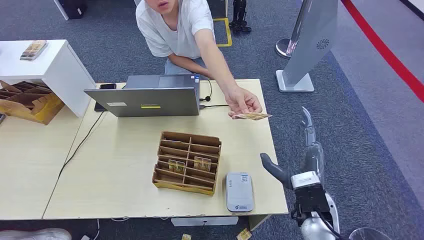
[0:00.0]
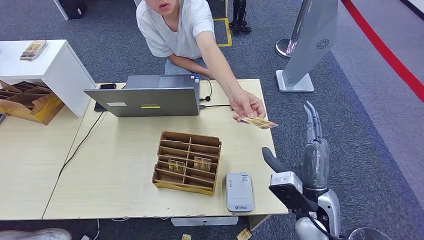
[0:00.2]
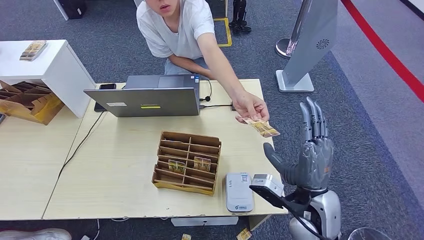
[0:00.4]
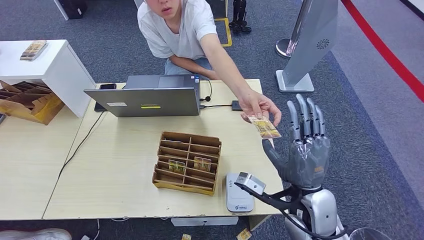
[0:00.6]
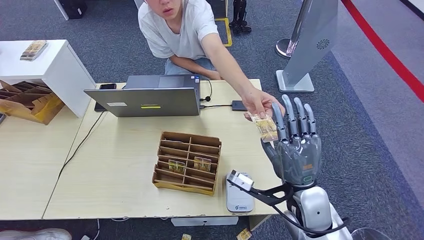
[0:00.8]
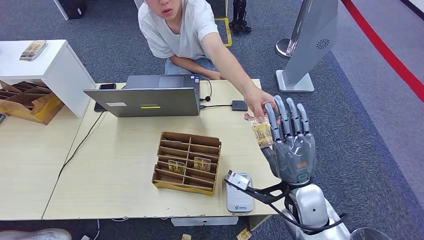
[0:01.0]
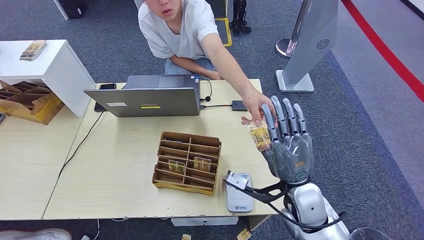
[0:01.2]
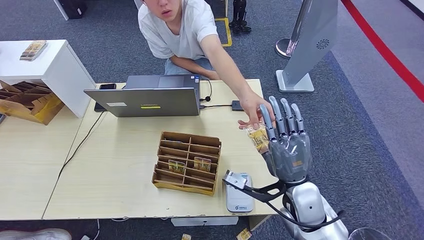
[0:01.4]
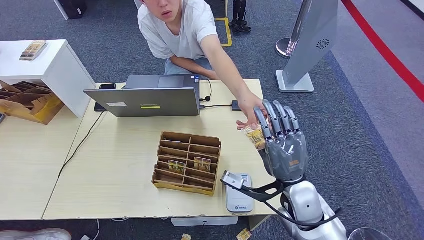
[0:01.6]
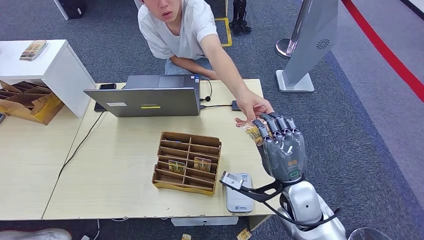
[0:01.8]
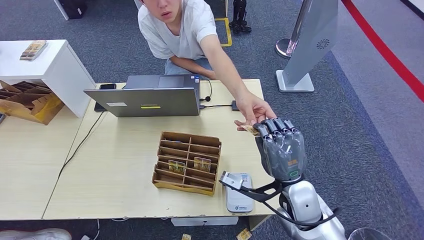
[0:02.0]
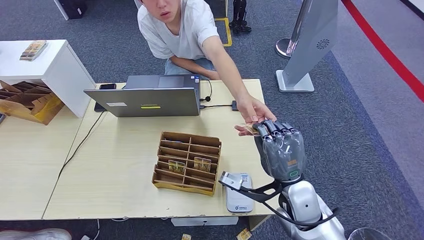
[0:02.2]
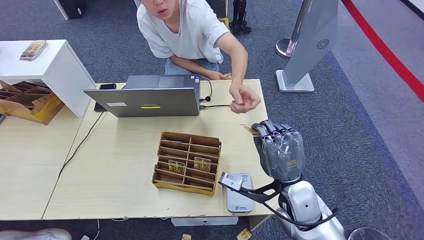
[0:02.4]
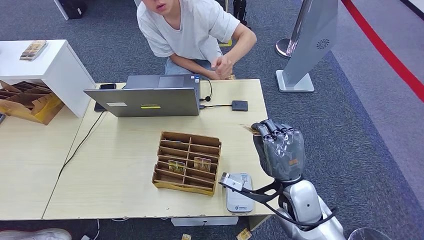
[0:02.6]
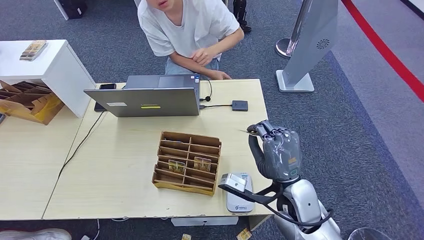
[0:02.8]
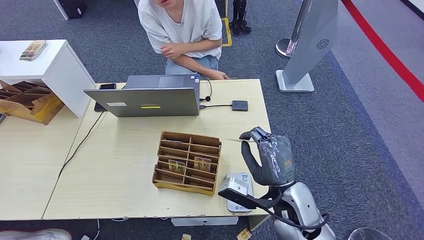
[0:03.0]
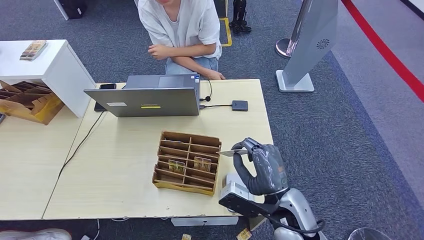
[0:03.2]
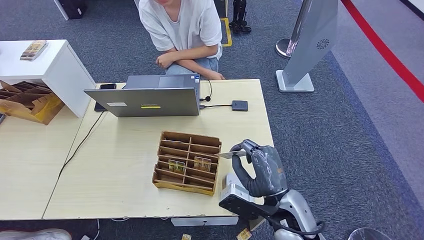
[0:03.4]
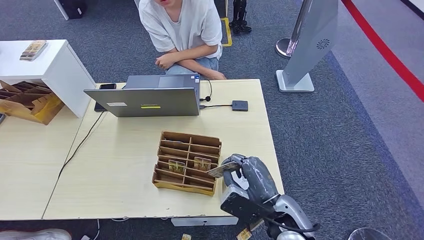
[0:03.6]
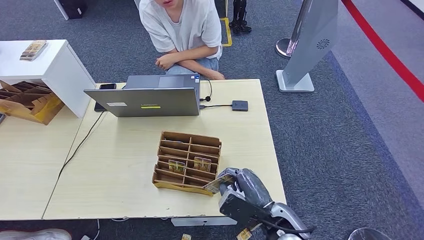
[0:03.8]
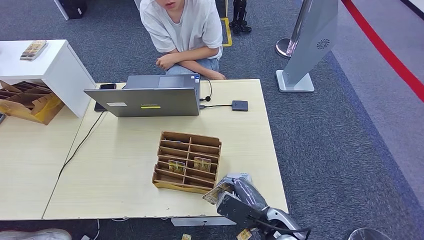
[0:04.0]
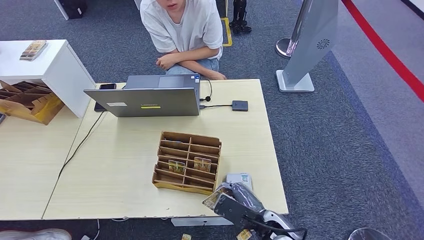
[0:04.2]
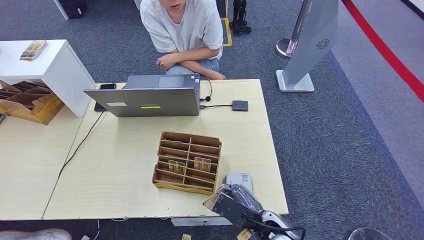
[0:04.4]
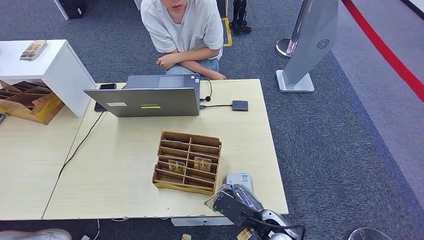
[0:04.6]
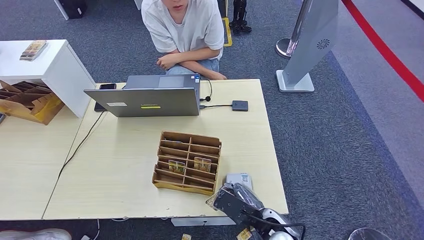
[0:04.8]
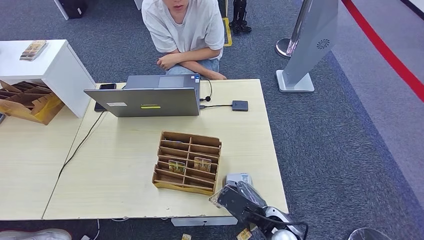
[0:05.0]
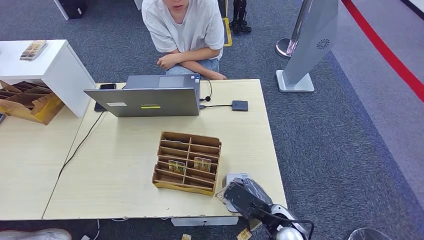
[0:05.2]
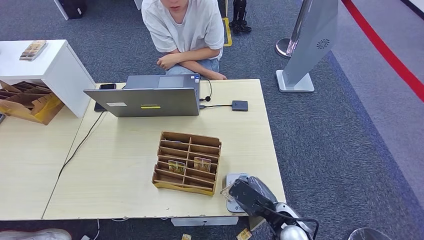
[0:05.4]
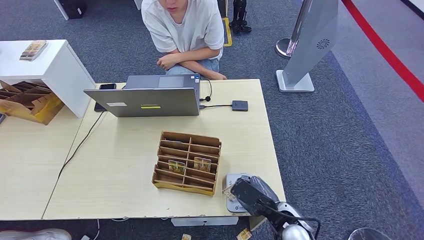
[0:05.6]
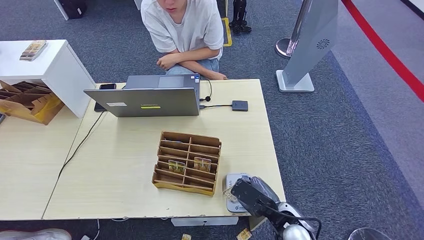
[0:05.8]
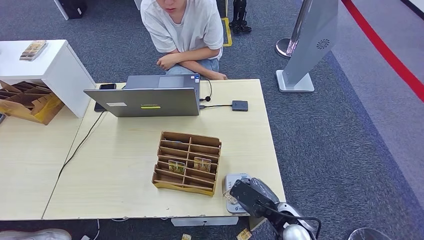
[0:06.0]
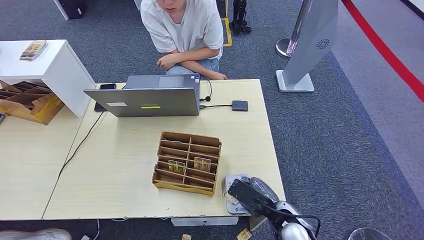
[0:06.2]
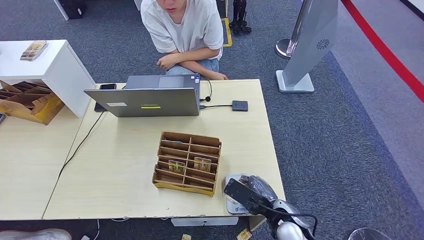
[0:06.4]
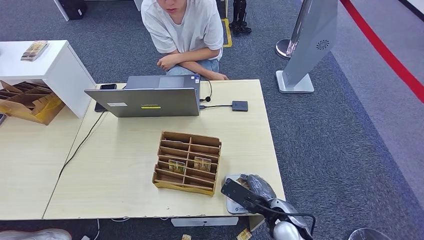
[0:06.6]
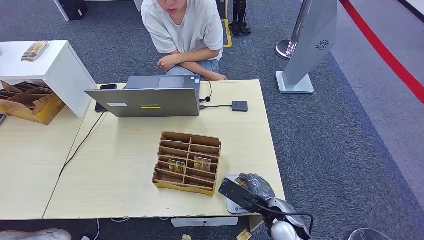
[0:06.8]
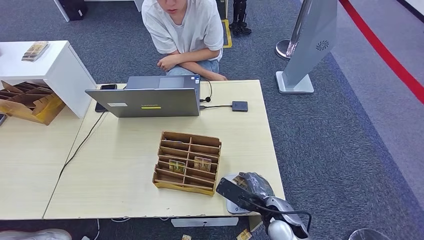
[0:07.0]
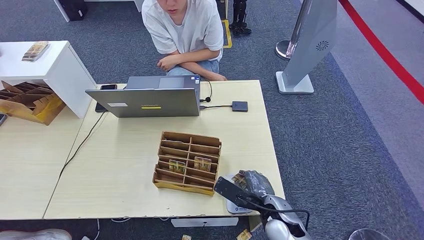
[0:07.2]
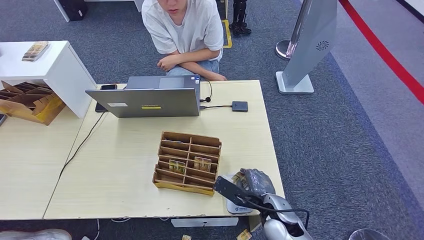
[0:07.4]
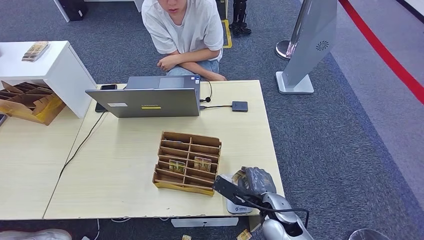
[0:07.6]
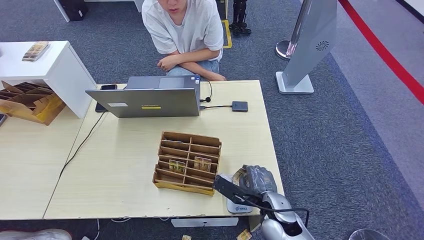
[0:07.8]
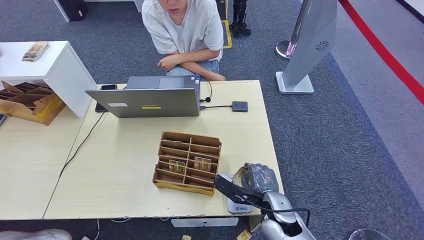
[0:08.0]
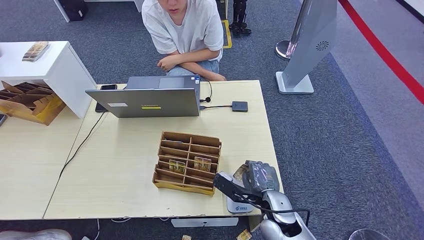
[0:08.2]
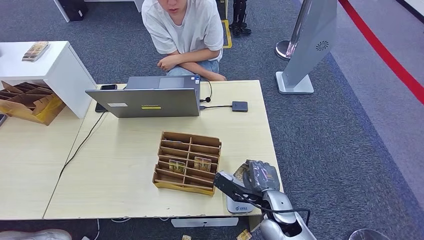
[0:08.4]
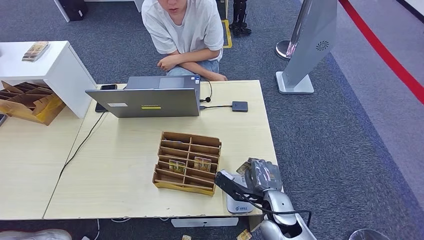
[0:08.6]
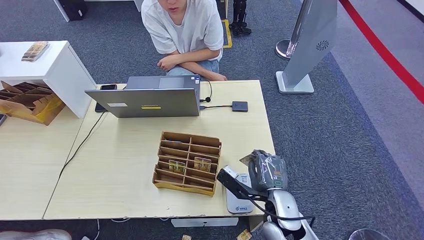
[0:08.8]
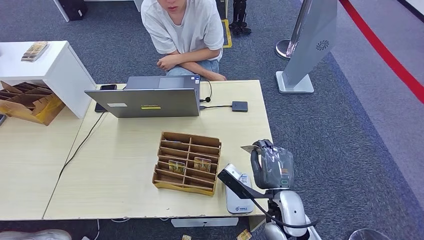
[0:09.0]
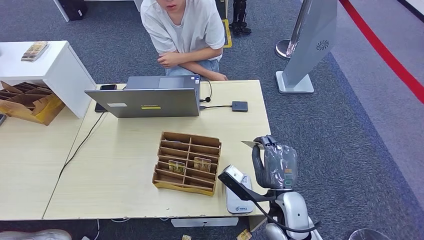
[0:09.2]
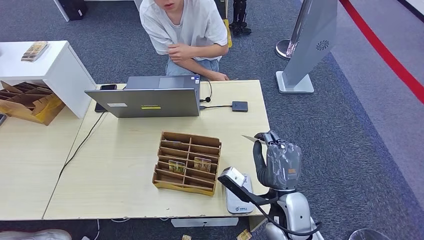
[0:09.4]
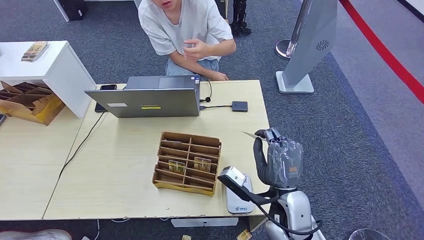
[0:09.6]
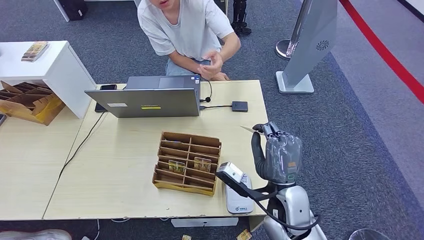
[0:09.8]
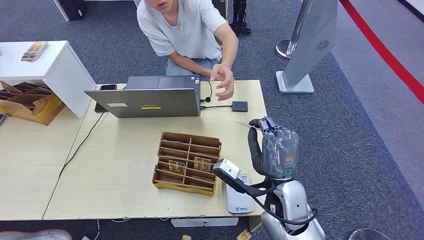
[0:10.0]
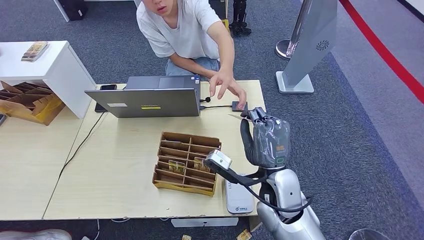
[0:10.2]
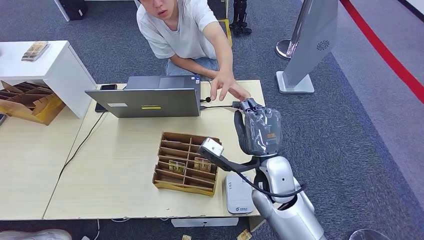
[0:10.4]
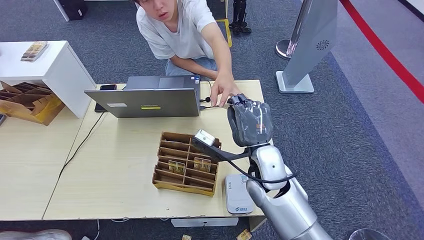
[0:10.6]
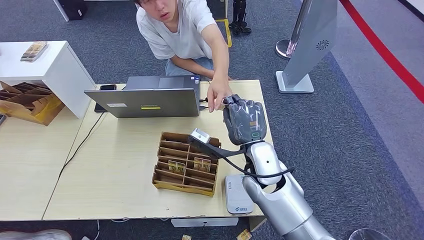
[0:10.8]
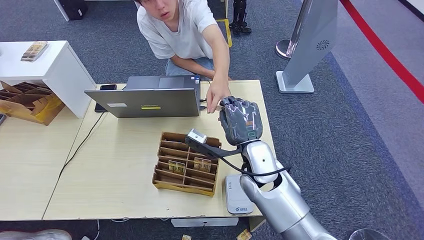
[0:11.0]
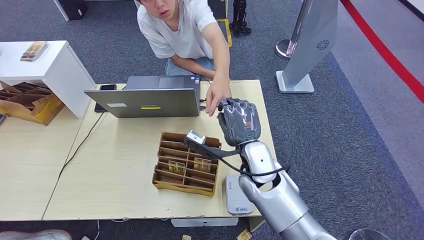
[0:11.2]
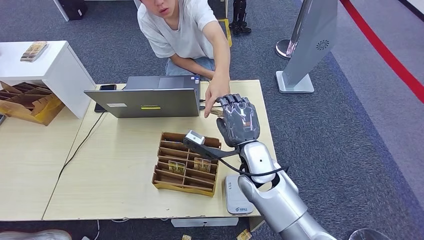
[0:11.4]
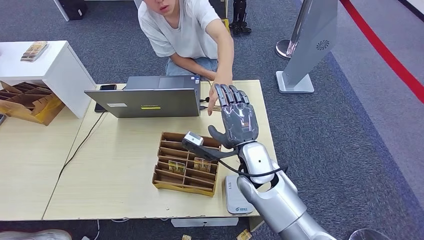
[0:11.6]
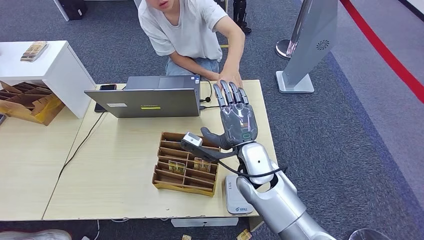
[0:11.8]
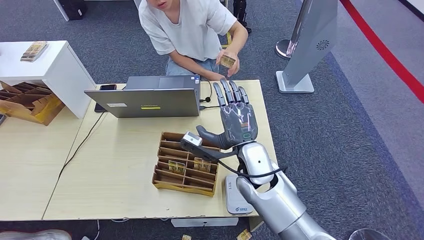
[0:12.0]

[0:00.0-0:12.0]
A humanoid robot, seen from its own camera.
Step, 0:00.0 to 0:02.2: Take the ID card from the person's hand.
Step, 0:02.4 to 0:07.2: Place the ID card on the card reader.
Step, 0:07.4 to 0:11.0: Hand the ID card to the person.
0:03.0 to 0:04.4: The right hand moves downward, about 10 cm.
0:04.4 to 0:06.0: The hands move only a little.
0:07.6 to 0:09.0: The right hand moves some 5 cm.
0:09.0 to 0:10.4: The right hand travels upward and forward by roughly 10 cm.
0:10.4 to 0:12.0: The hands make only small movements.

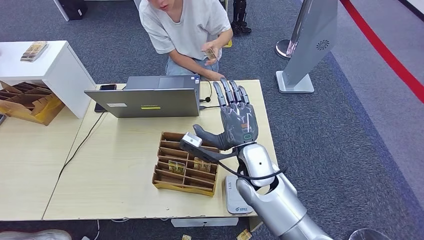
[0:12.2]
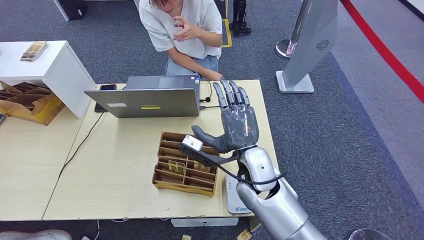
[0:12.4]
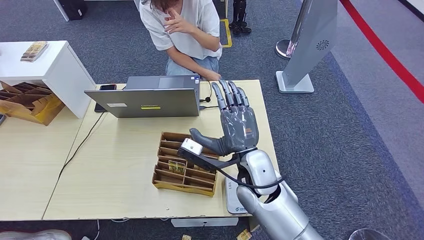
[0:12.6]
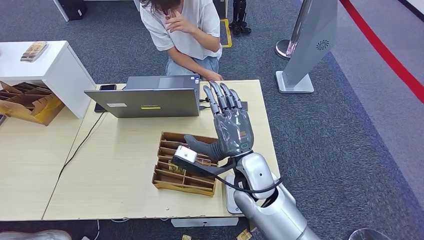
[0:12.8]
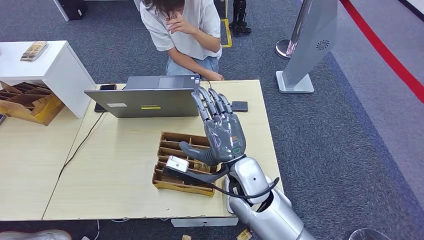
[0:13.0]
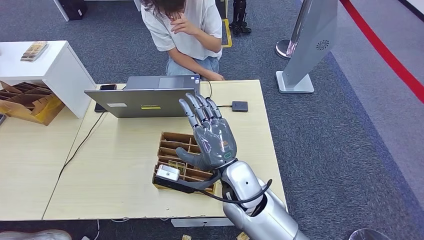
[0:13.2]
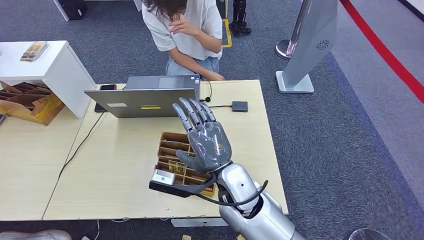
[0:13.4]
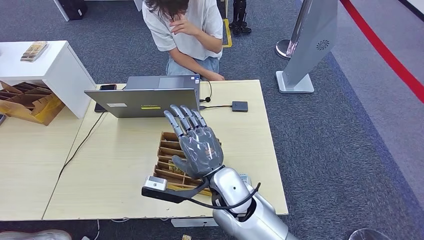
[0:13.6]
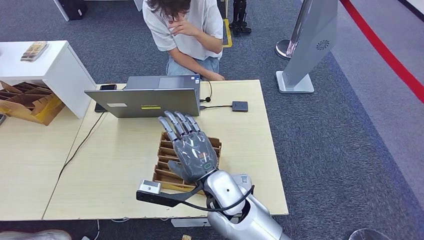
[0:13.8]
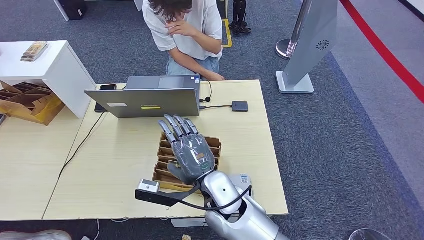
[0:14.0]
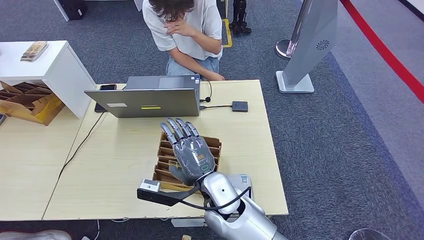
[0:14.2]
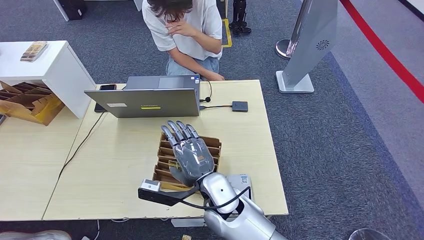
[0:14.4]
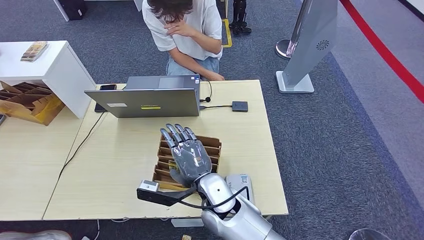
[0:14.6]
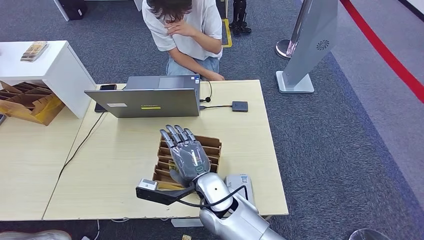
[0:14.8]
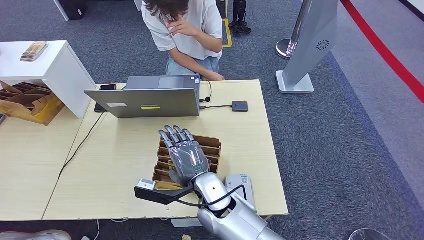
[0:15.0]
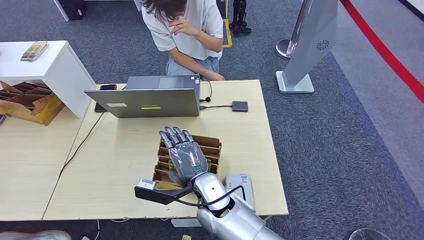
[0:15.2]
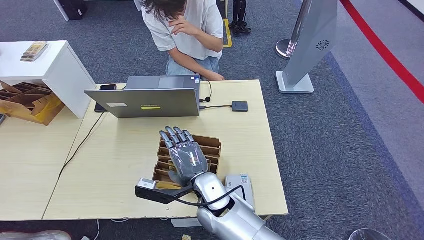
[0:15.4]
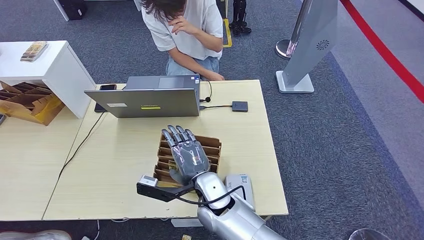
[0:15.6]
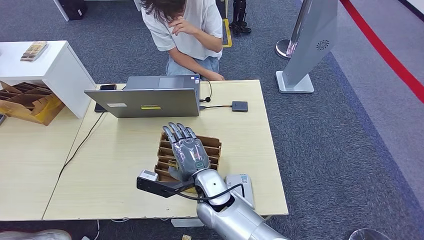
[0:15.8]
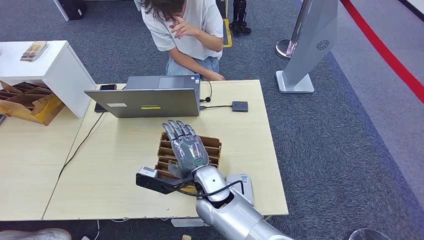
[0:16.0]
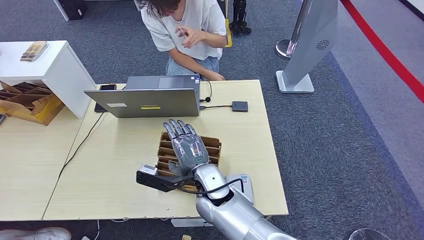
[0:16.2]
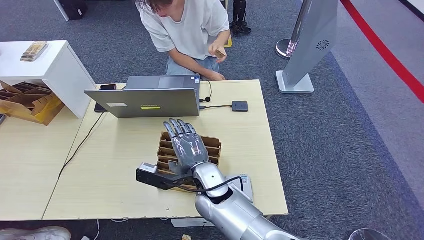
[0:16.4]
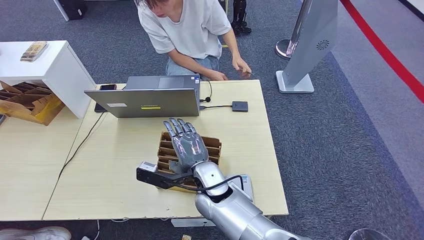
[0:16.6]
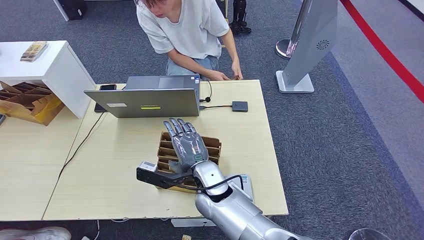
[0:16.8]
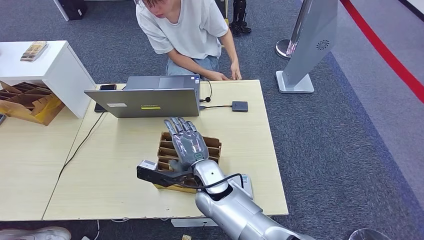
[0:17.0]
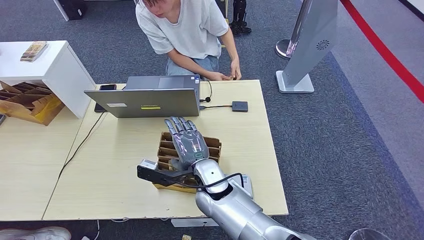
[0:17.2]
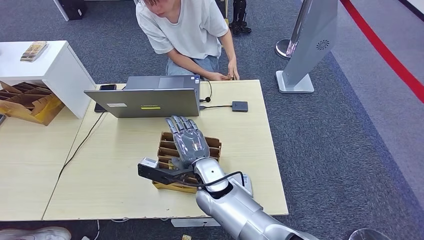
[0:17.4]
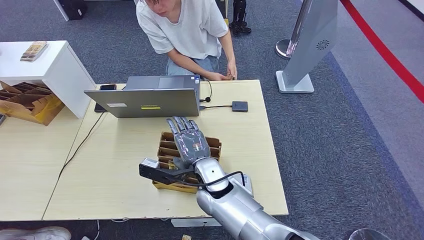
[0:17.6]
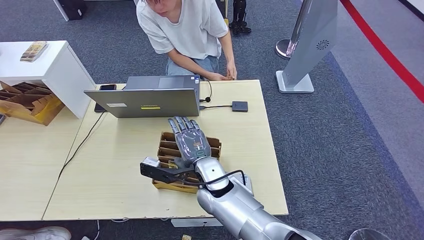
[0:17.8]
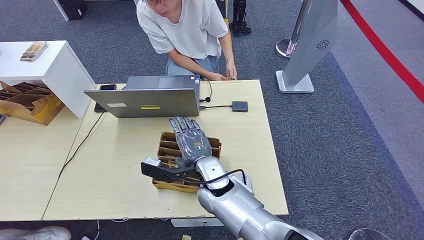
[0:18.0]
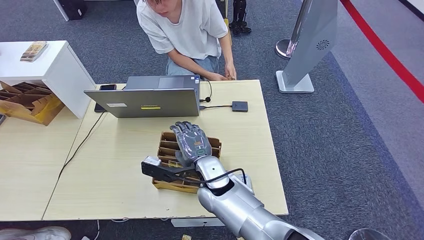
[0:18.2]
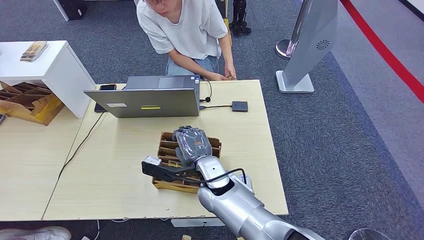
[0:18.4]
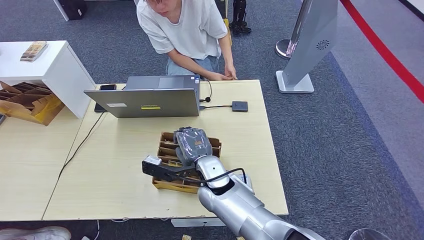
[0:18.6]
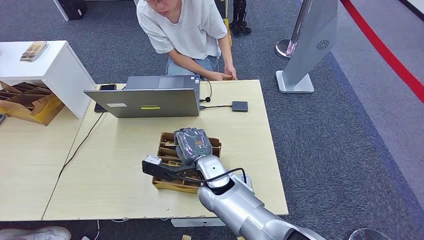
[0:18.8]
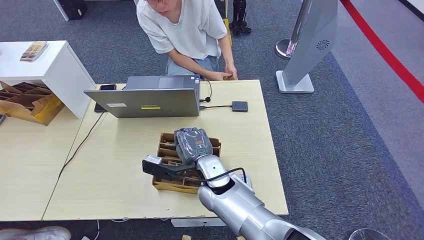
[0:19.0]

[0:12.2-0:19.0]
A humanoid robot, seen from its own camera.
0:12.2 to 0:13.6: The right hand travels to the left and backward by roughly 10 cm.
0:13.6 to 0:15.0: The right hand heads downward, covering about 5 cm.
0:15.0 to 0:17.6: The hands make only small movements.
0:17.6 to 0:19.0: Both hands stay about where they are.
